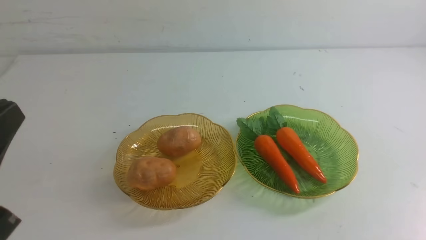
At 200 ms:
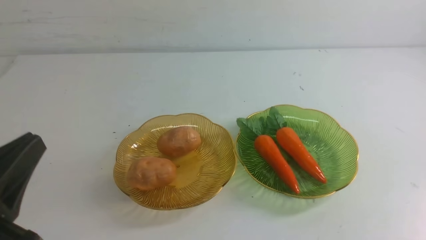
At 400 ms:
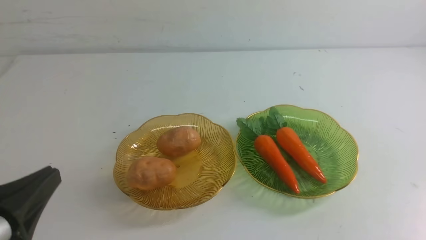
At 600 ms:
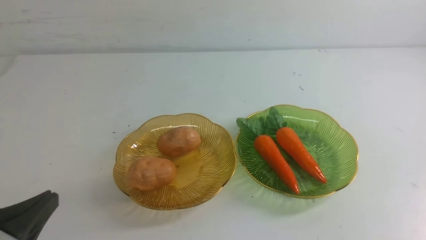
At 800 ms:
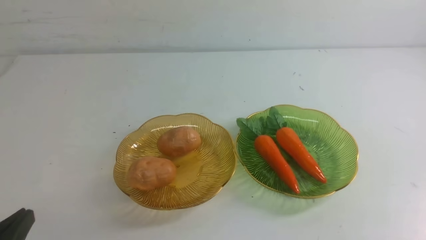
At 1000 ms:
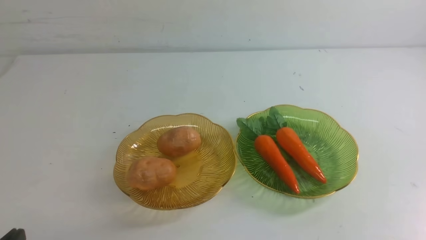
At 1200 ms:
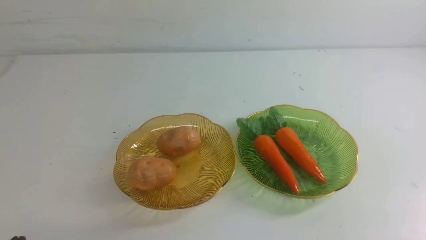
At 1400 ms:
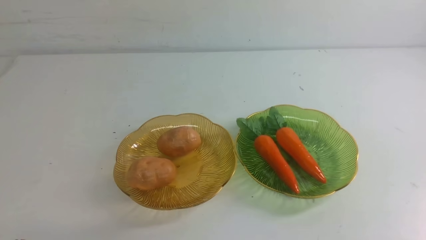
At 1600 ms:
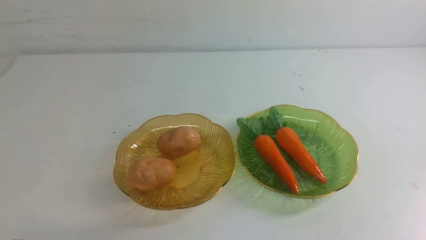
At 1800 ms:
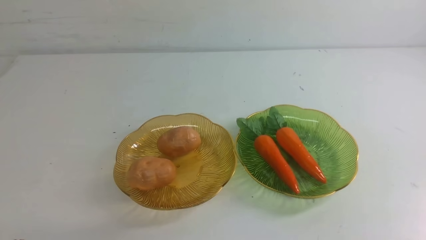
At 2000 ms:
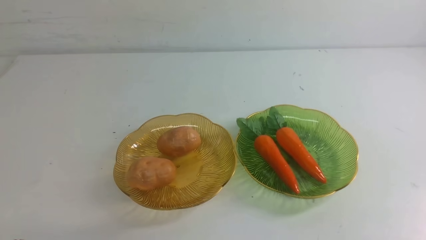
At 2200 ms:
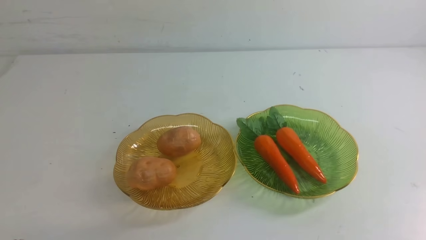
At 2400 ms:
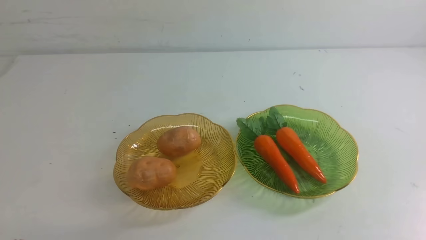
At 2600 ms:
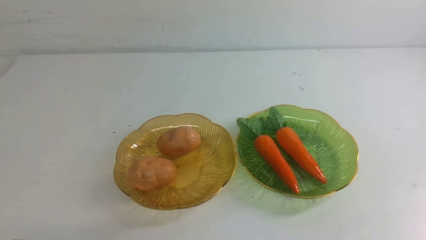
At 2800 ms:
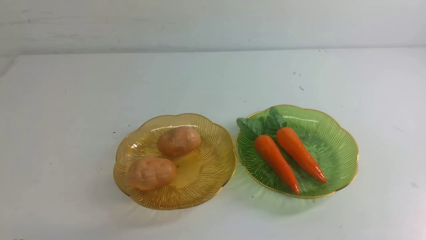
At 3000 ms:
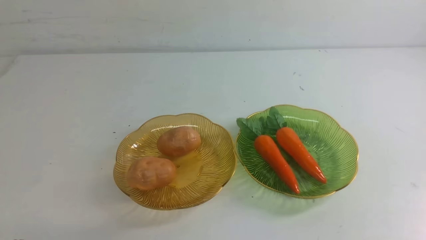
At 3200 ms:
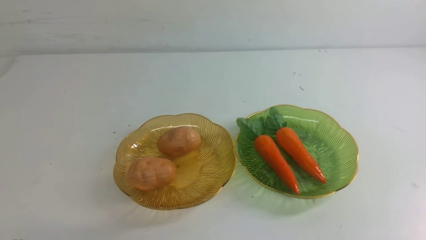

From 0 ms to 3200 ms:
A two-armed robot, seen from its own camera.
From 0 ms to 1600 ms: The left gripper heads downward, covering some 15 cm.
From 1600 ms to 3200 ms: Both grippers stay put.
